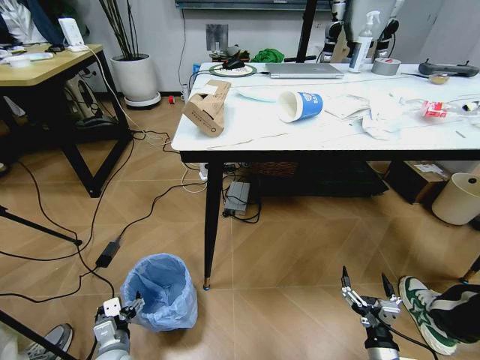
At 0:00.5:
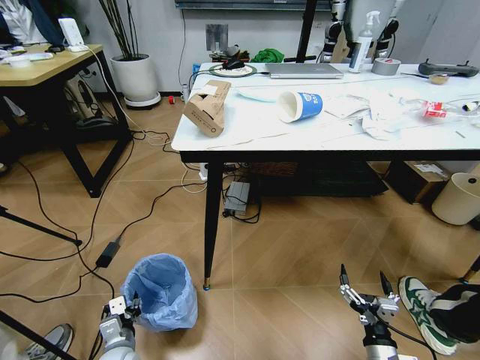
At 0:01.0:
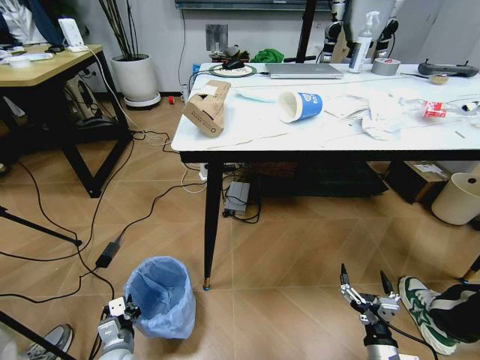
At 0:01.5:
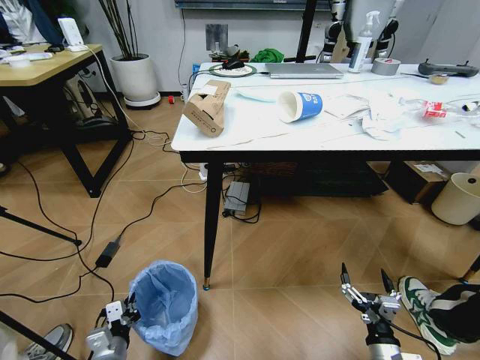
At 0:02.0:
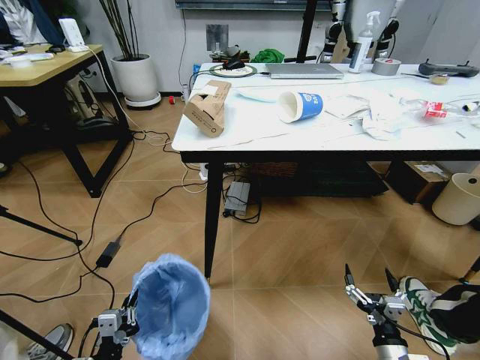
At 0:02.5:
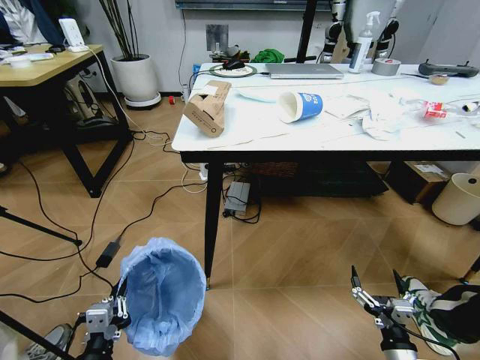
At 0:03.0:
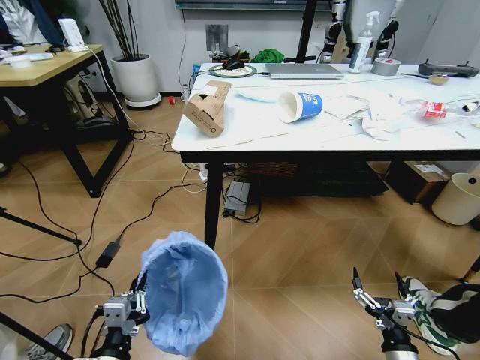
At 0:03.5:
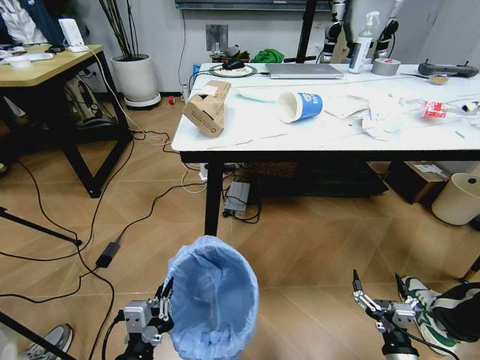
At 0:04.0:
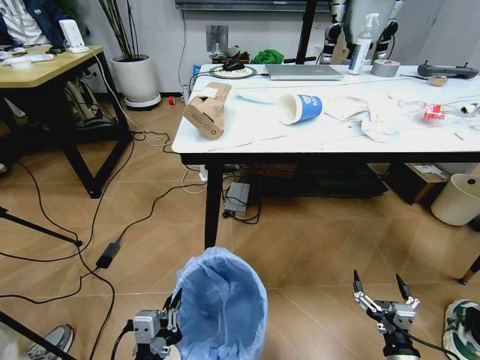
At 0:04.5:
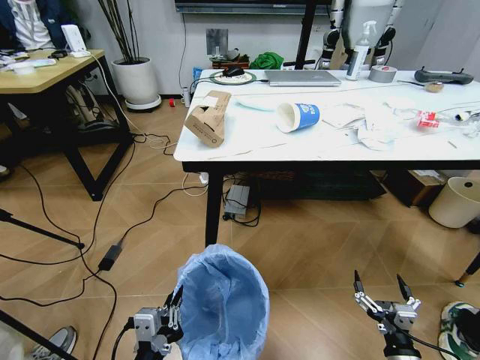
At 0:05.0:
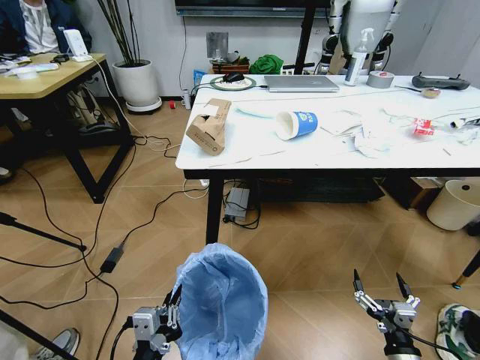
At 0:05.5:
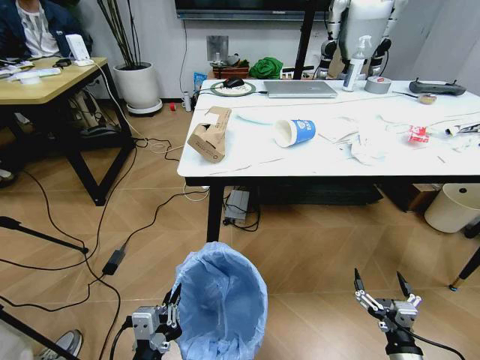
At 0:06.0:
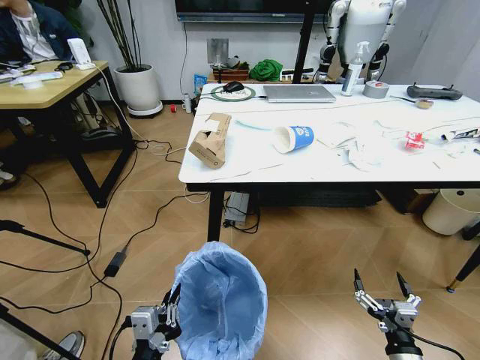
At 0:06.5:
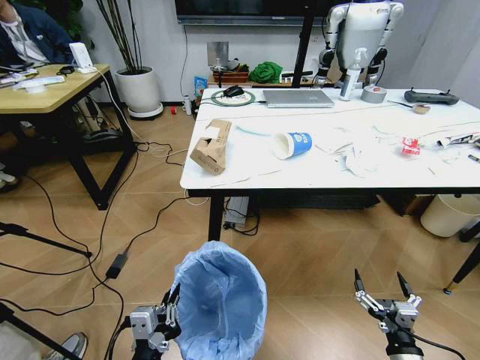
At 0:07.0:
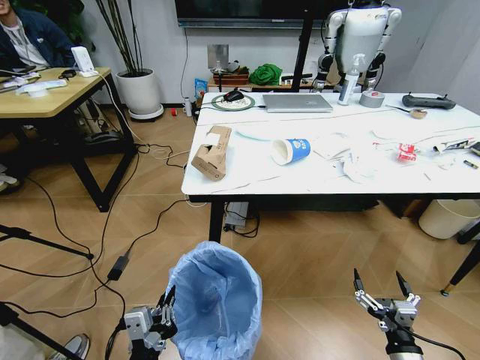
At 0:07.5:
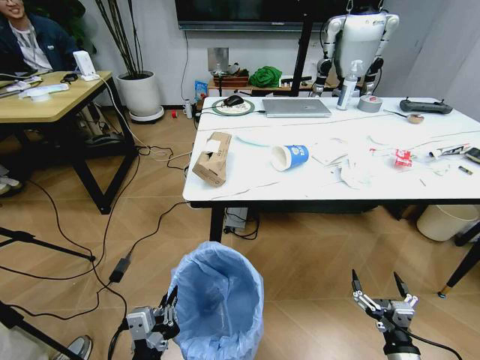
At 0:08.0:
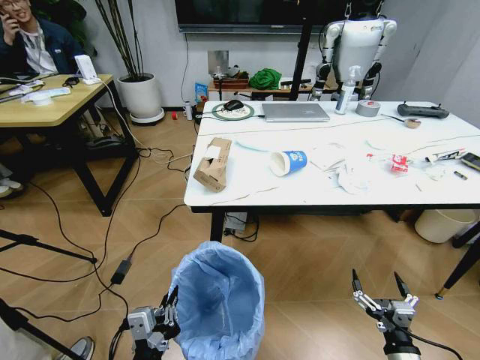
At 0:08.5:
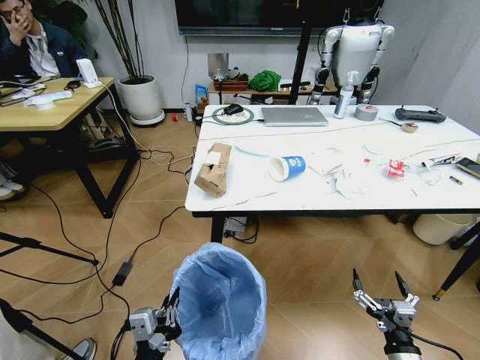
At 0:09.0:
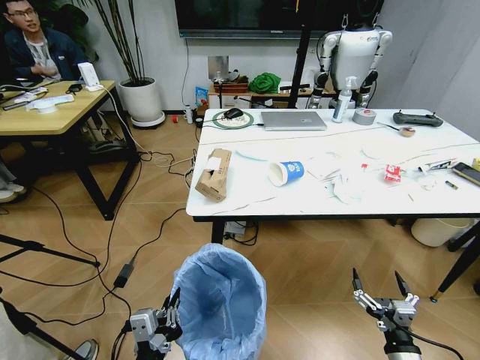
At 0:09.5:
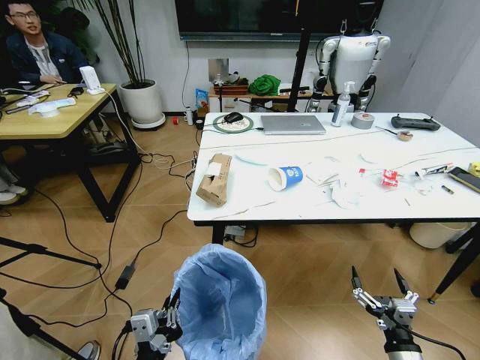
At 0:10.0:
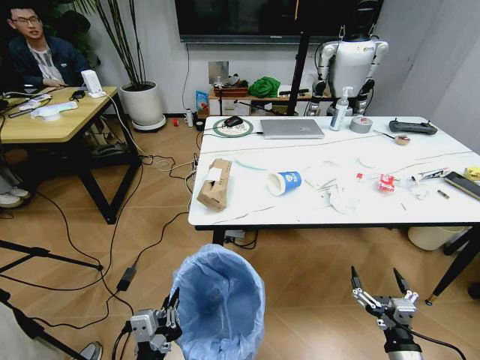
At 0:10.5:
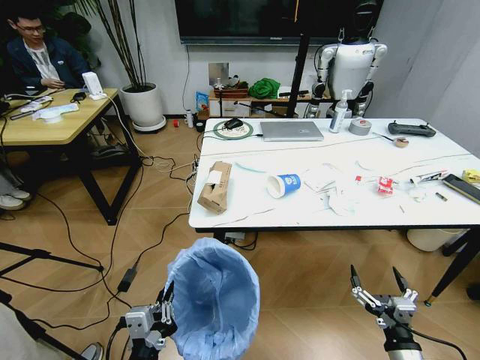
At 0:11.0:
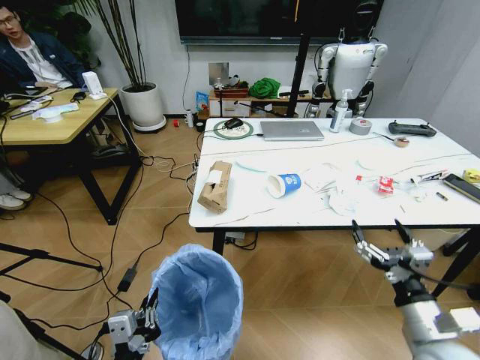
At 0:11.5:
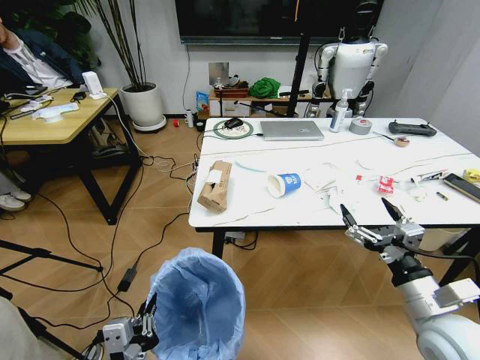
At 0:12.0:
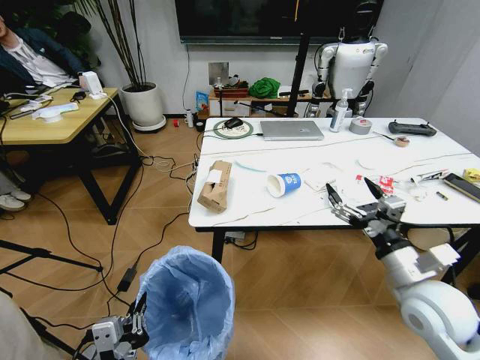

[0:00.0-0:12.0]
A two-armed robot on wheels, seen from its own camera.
Task of the whole recording: Pick up the trash bin and place the trash from the table into it.
0:00.0 to 0:02.0: The left gripper shifts approximately 10 cm backward and upward, and closes.
0:02.0 to 0:04.0: The left gripper goes about 15 cm upward and to the right.
0:10.0 to 0:12.0: The right gripper shifts roughly 20 cm upward and forward.

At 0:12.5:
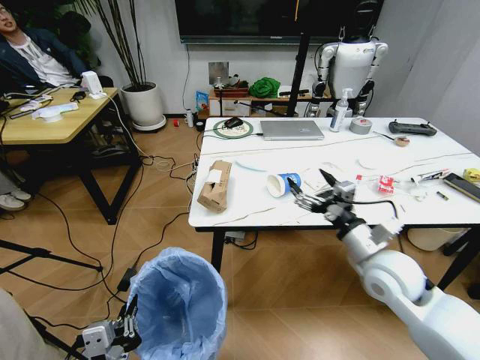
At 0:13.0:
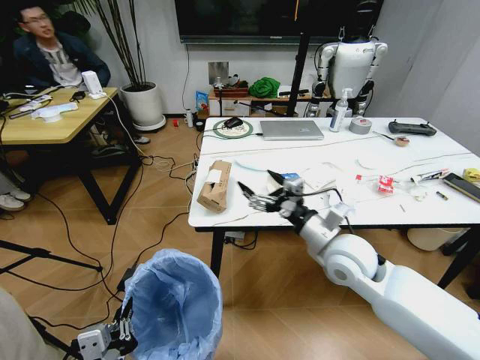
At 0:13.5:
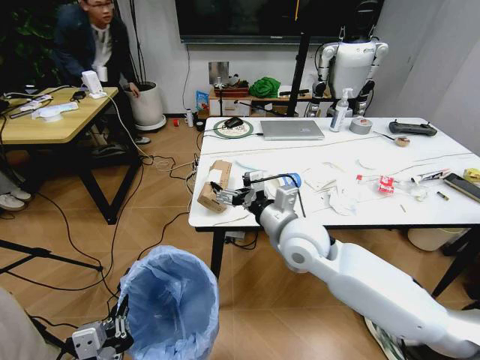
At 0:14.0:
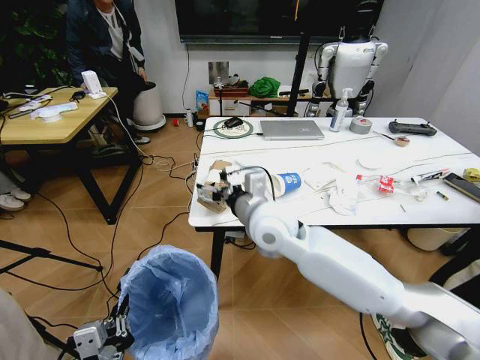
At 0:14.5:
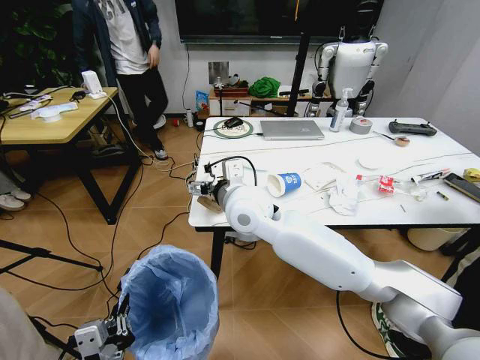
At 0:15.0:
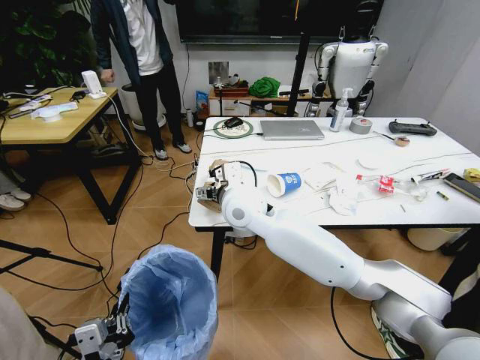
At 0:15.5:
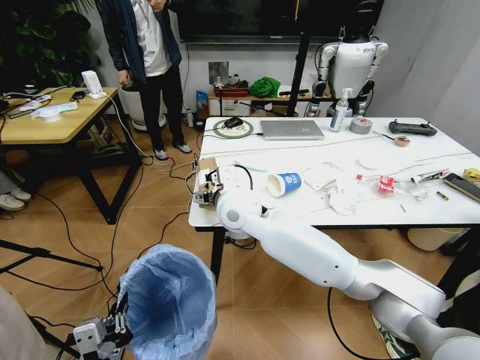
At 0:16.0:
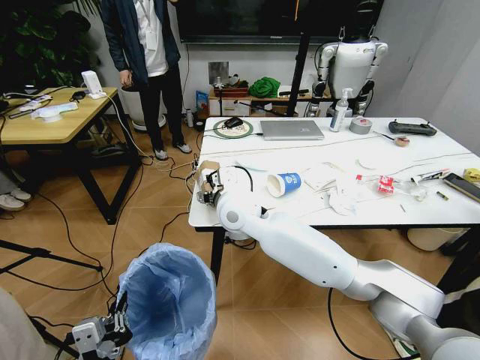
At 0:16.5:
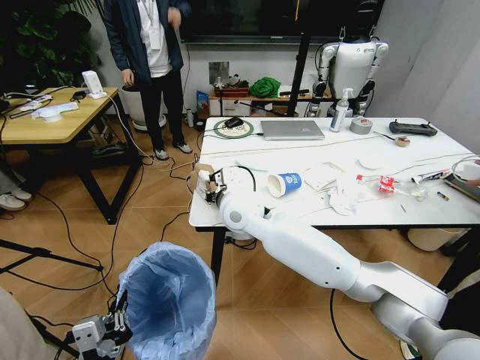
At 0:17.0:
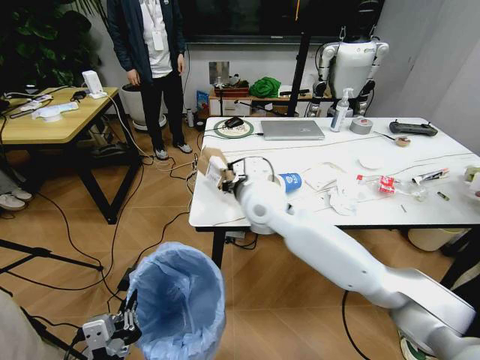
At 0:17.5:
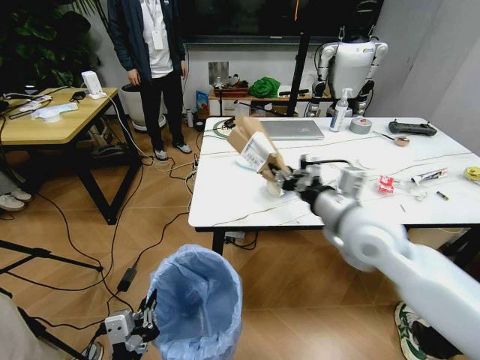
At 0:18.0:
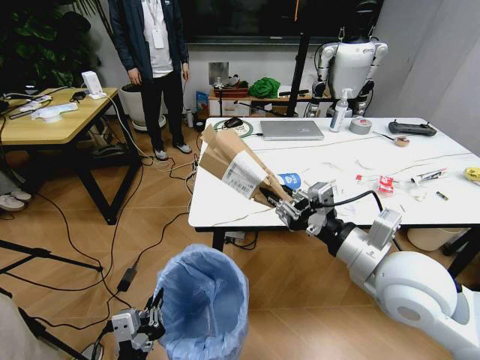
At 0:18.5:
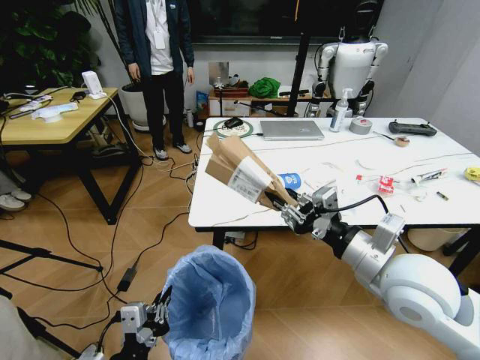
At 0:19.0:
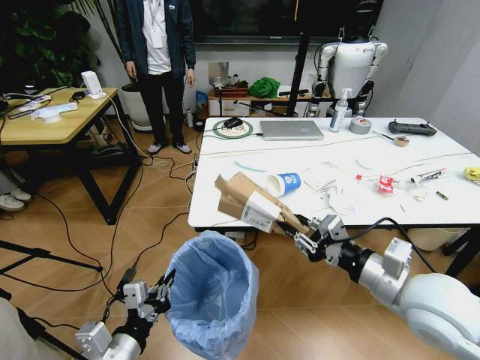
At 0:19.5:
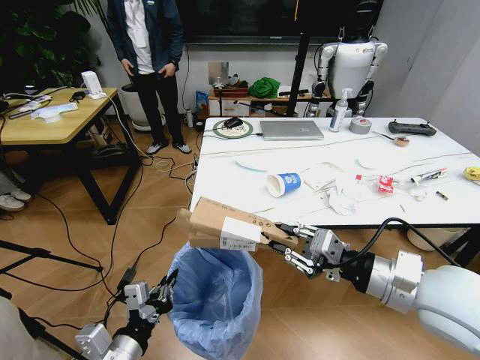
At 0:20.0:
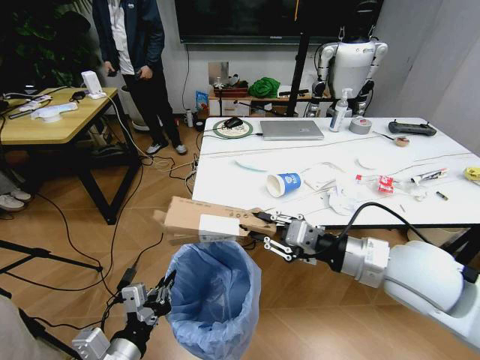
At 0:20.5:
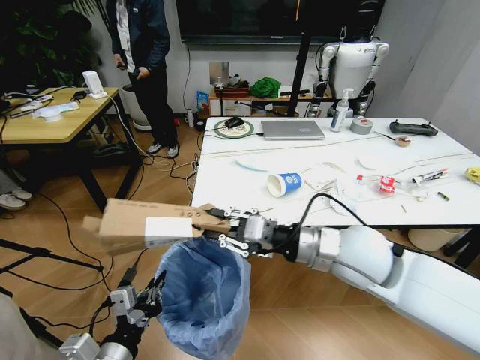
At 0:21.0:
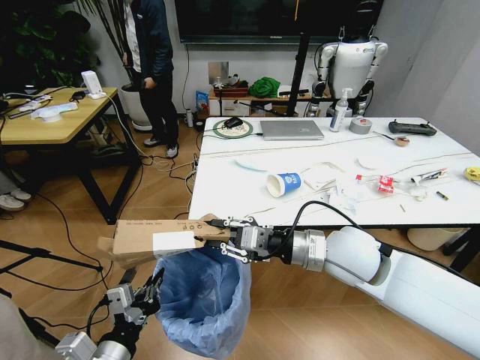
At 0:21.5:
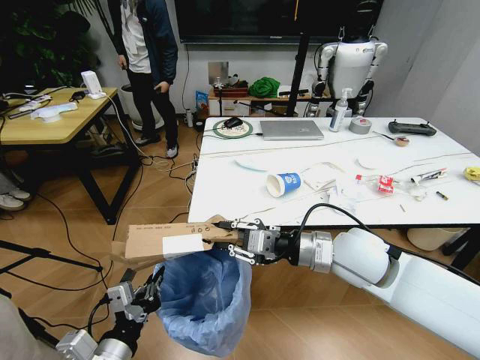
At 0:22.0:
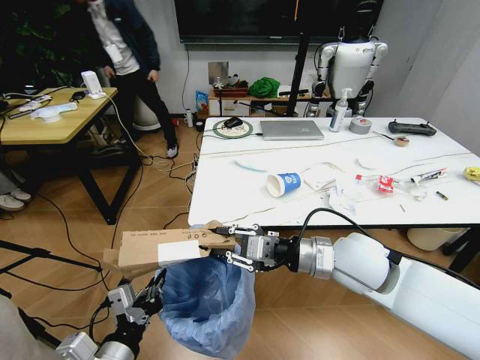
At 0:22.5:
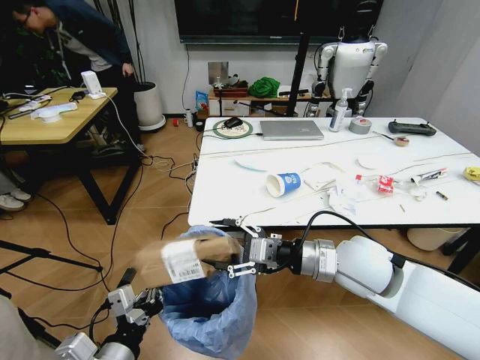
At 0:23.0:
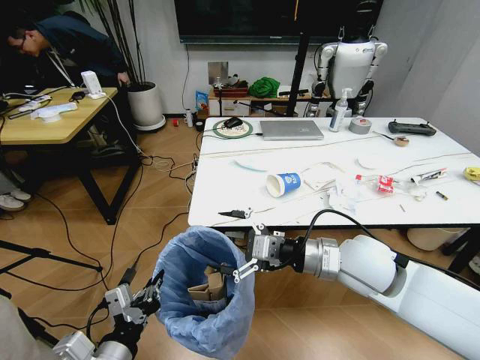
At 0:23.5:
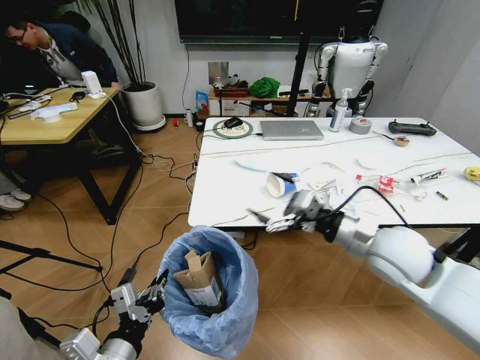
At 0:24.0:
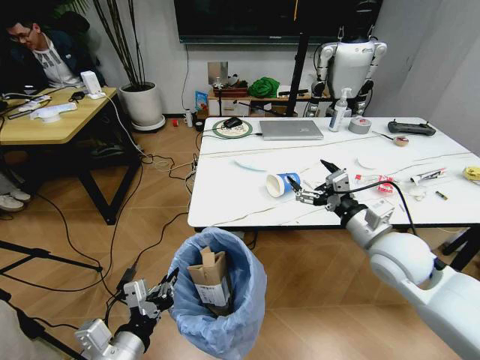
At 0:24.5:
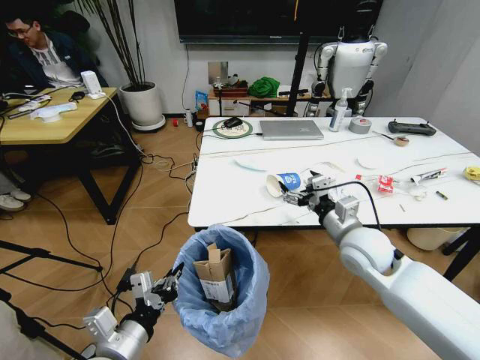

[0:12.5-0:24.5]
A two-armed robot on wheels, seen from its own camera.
Task of the whole recording: Pick up the trash bin and place the trash from the table into it.
0:12.5 to 0:14.5: The right gripper travels to the left by about 30 cm.
0:14.5 to 0:16.5: The right gripper closes up.
0:16.5 to 0:18.5: The right gripper is displaced to the right and backward by some 30 cm.
0:18.5 to 0:20.5: The right gripper moves to the left and forward, roughly 10 cm.
0:20.5 to 0:22.5: The right gripper opens its fingers.
0:22.5 to 0:24.5: The right gripper is displaced forward by about 5 cm.

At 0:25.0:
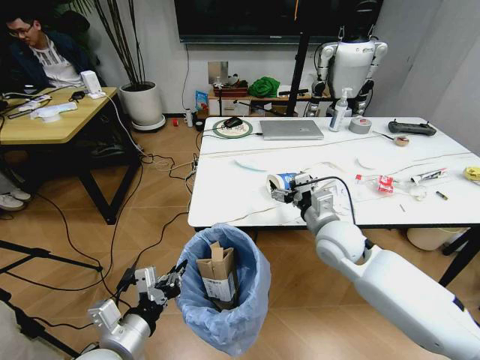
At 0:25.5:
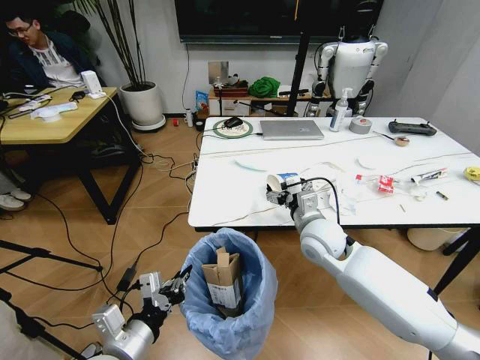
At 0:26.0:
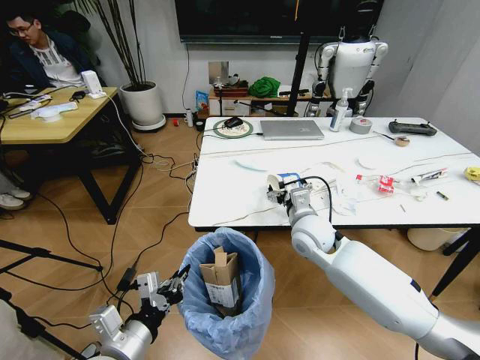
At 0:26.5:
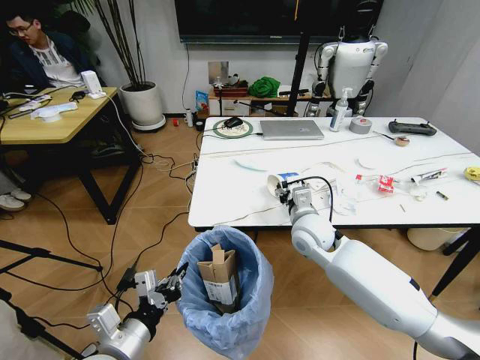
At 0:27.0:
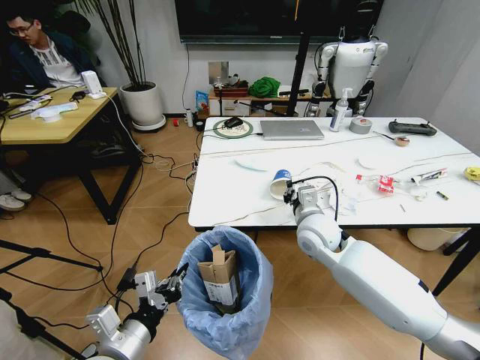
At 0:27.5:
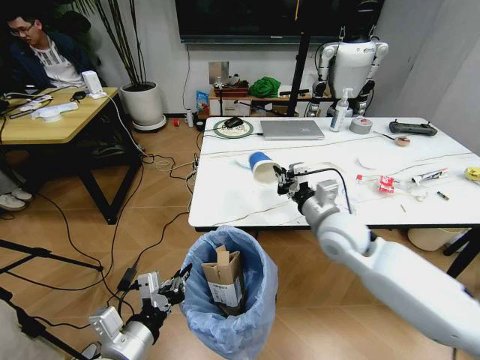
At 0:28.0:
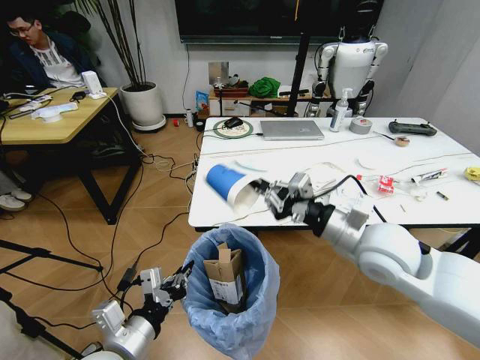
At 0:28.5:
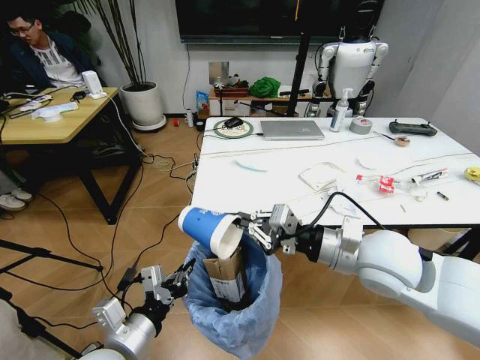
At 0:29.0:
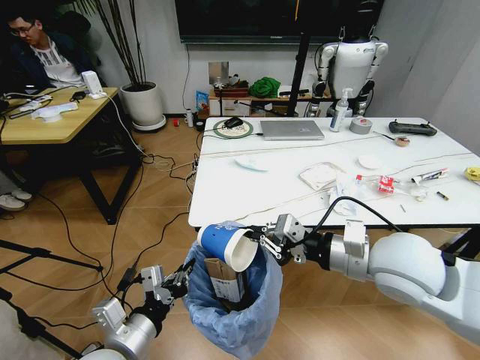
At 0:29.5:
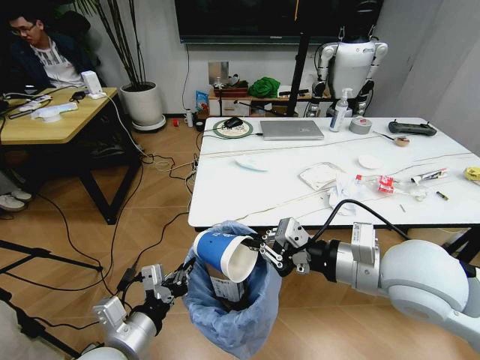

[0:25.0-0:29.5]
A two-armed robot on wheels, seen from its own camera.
Task of the whole recording: Pick up the trash bin and place the trash from the table into it.
0:25.0 to 0:27.0: The right gripper closes up.
0:27.0 to 0:29.5: The right gripper shifts roughly 20 cm backward and upward.
